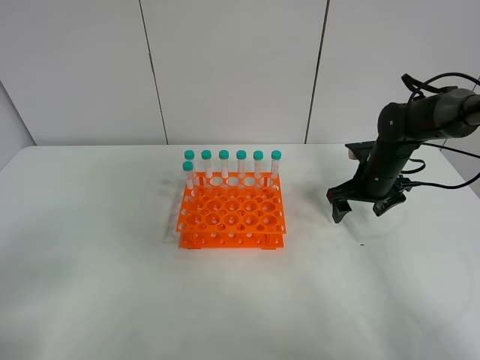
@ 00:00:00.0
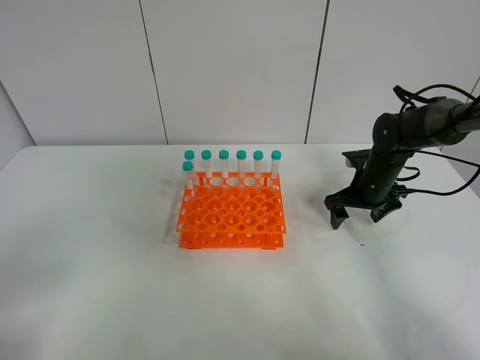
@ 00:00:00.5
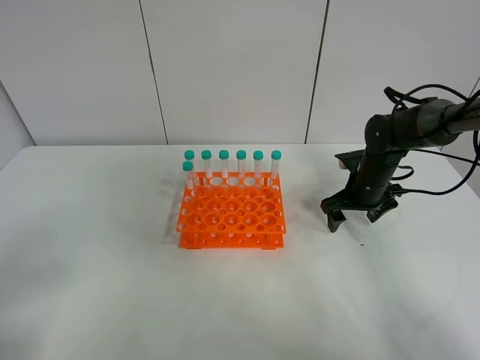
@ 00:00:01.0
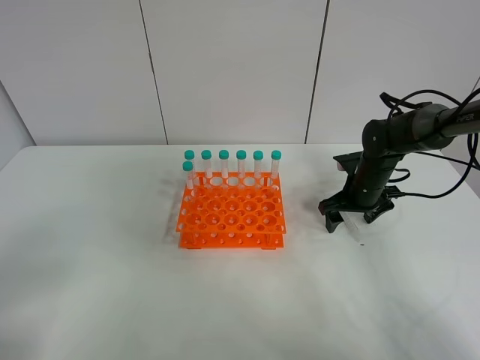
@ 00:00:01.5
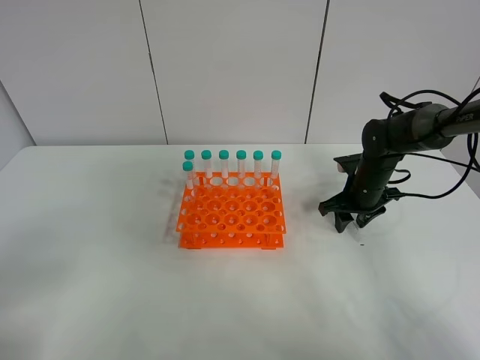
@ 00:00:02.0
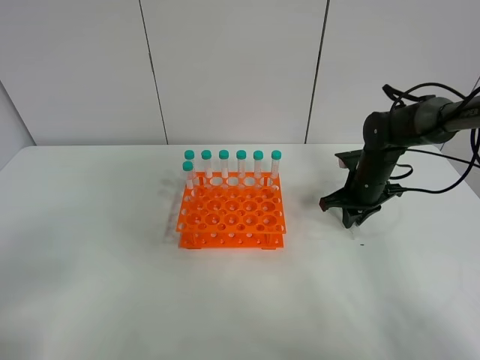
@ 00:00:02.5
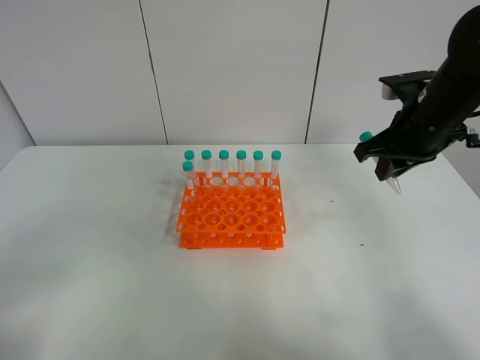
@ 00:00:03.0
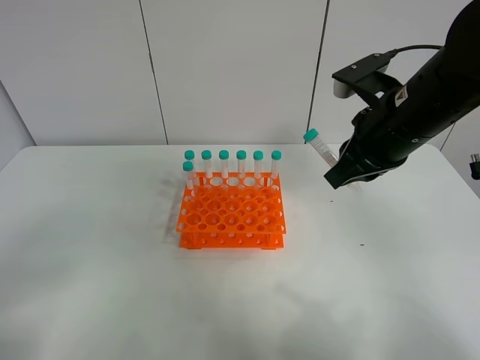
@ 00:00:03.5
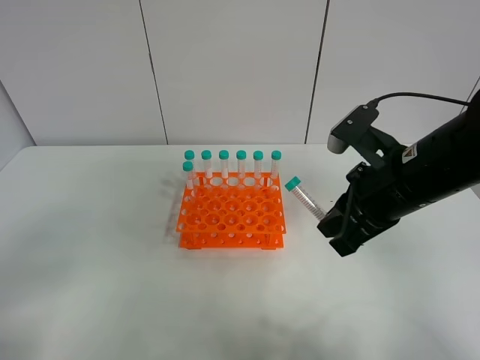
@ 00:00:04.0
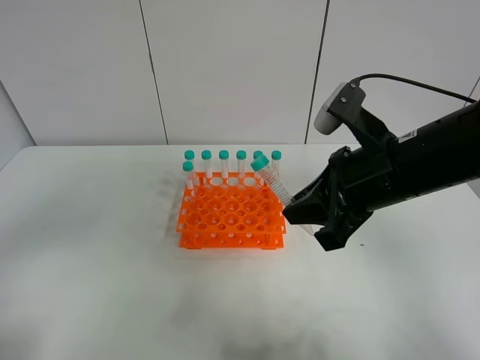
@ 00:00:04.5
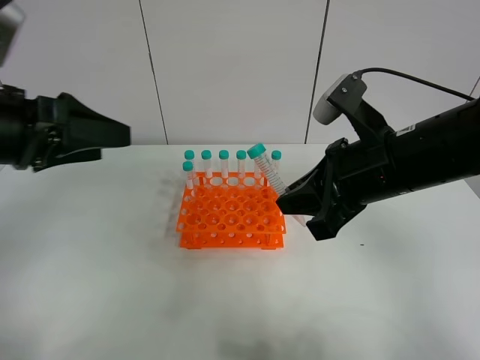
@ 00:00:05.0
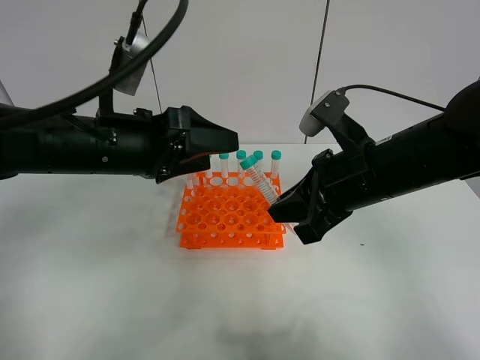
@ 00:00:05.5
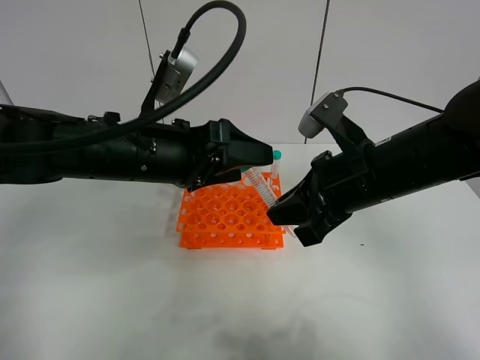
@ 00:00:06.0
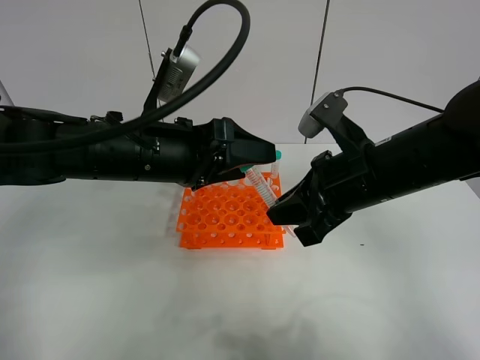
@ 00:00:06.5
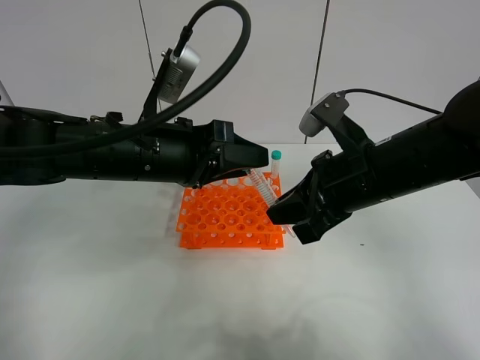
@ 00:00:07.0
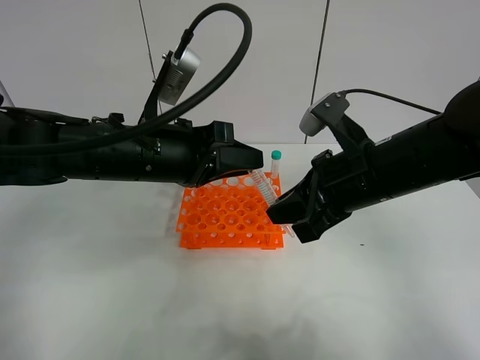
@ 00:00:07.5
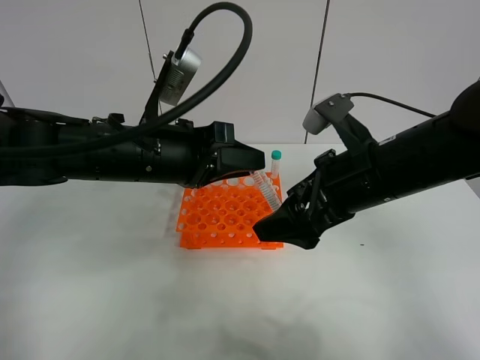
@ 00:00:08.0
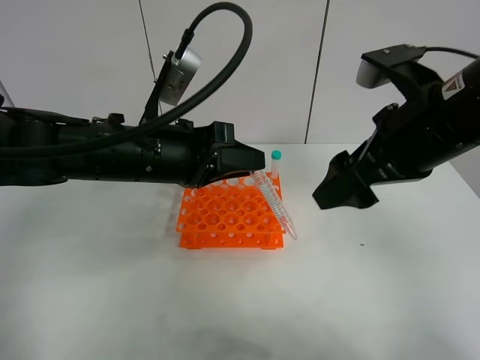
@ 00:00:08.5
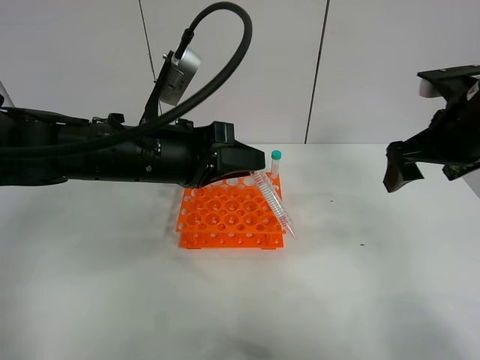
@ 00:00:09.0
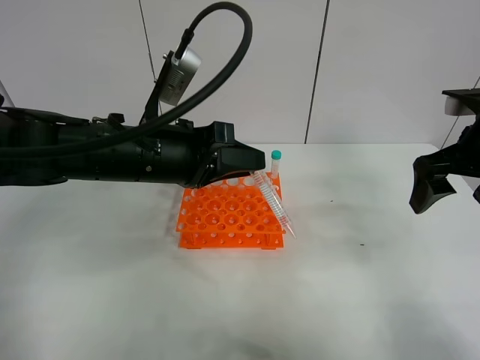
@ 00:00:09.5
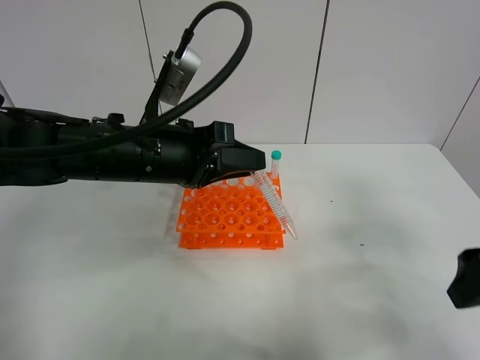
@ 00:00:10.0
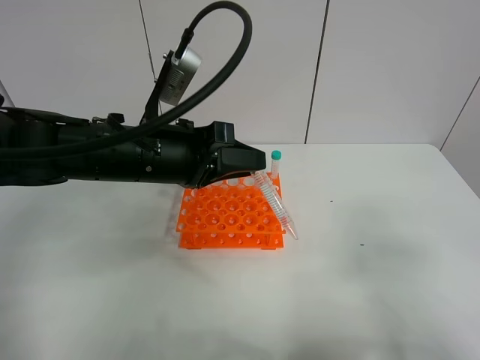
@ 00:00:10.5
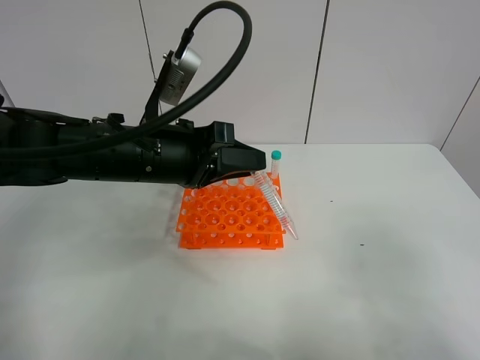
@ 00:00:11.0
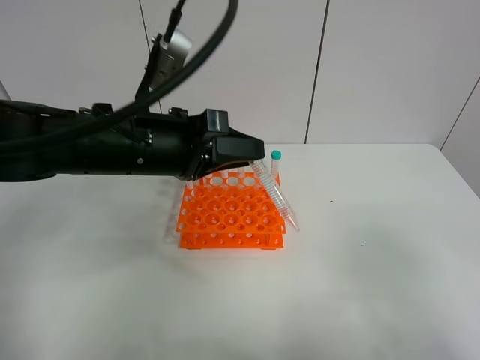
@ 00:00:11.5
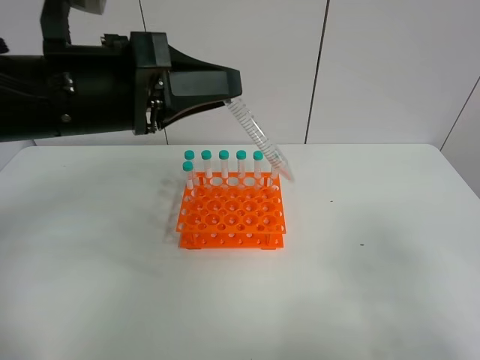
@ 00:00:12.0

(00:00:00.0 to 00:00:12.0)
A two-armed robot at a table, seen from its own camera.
Task of the whole recording: Put the test tube on the table back onto the test tube rack.
Step, 00:00:00.0 - 00:00:02.0: Pick up the test tube with the right gripper.
Step, 00:00:02.5 - 00:00:07.5: Move the test tube from the right gripper to the left gripper.
00:00:00.0 - 00:00:02.0: The right gripper closes up.
00:00:02.0 - 00:00:04.0: The right gripper goes approximately 25 cm backward and upward.
00:00:04.0 - 00:00:06.0: The left gripper is displaced forward and to the right by some 30 cm.
00:00:06.0 - 00:00:08.0: The left gripper closes its fingers. Meanwhile the right gripper opens up.
00:00:08.0 - 00:00:10.0: The right gripper is displaced to the right and backward by approximately 15 cm.
00:00:10.0 - 00:00:12.0: The right gripper goes approximately 15 cm backward. Meanwhile the left gripper travels upward by approximately 10 cm.

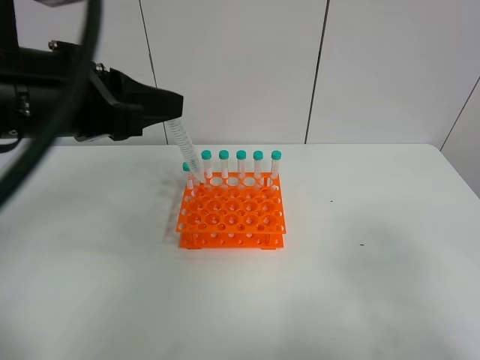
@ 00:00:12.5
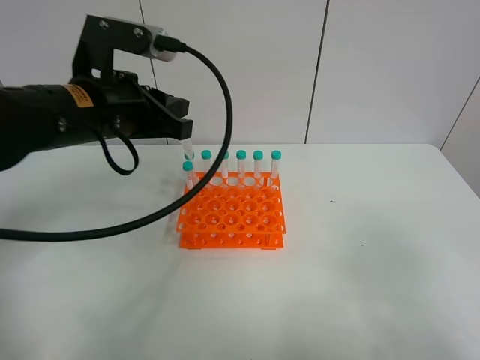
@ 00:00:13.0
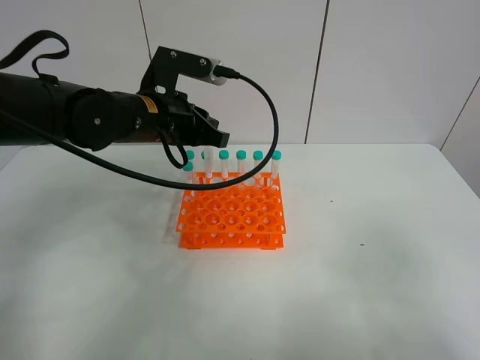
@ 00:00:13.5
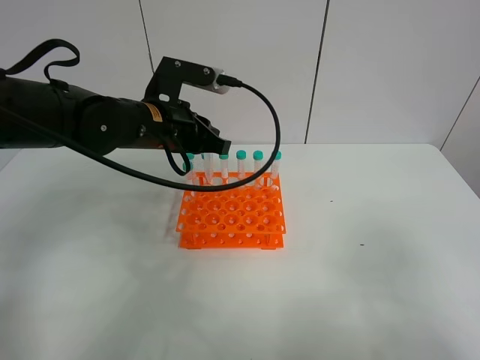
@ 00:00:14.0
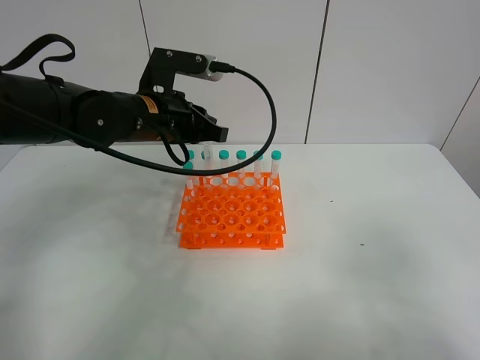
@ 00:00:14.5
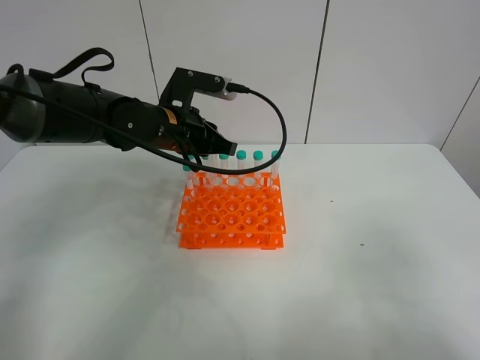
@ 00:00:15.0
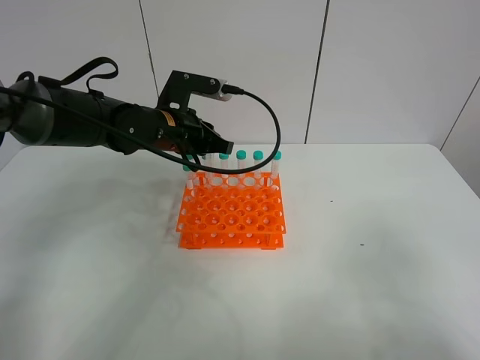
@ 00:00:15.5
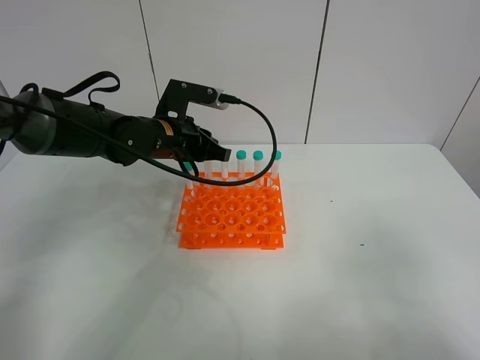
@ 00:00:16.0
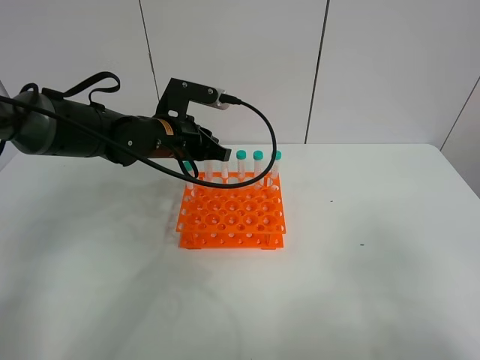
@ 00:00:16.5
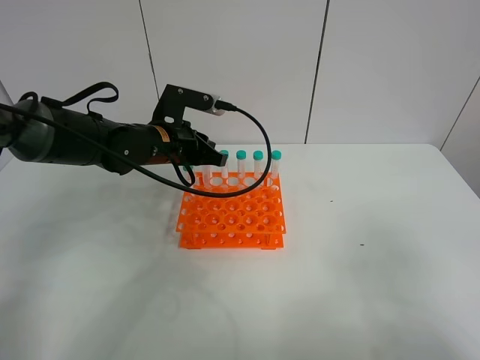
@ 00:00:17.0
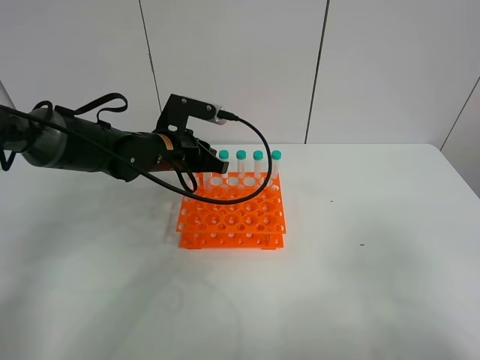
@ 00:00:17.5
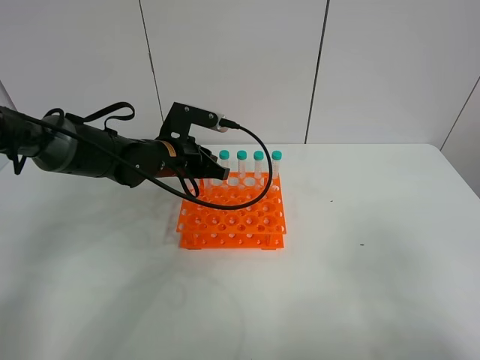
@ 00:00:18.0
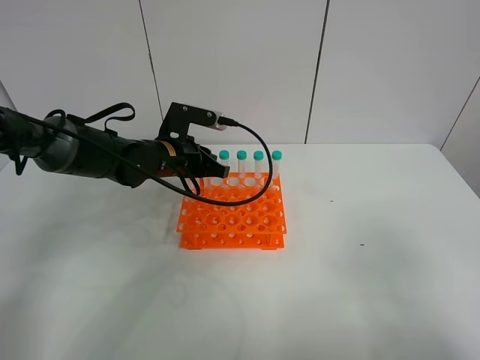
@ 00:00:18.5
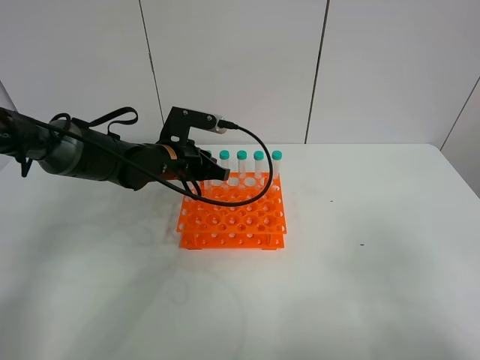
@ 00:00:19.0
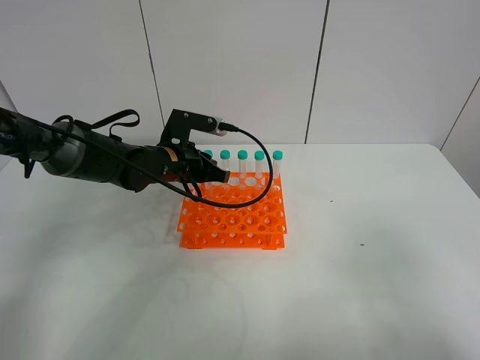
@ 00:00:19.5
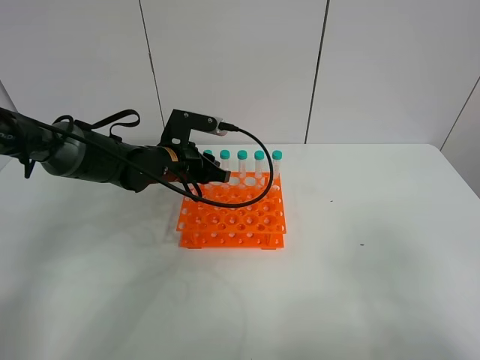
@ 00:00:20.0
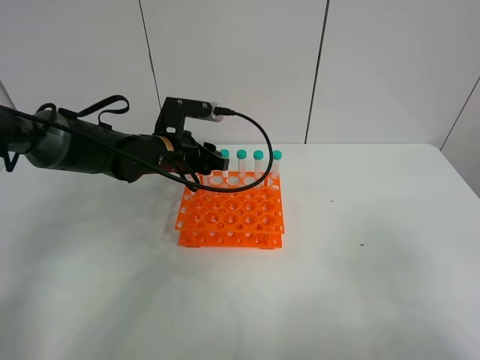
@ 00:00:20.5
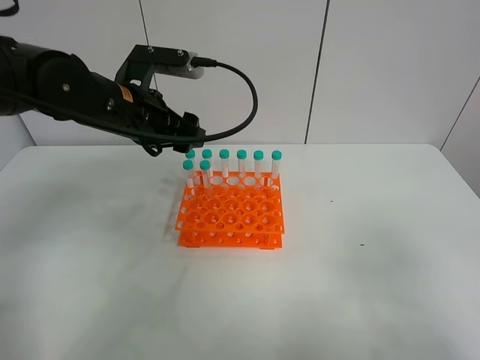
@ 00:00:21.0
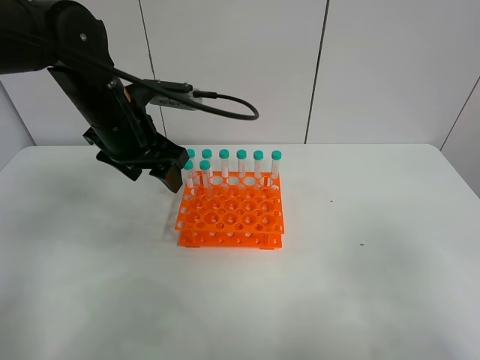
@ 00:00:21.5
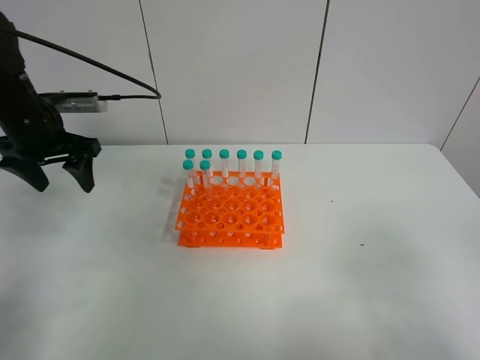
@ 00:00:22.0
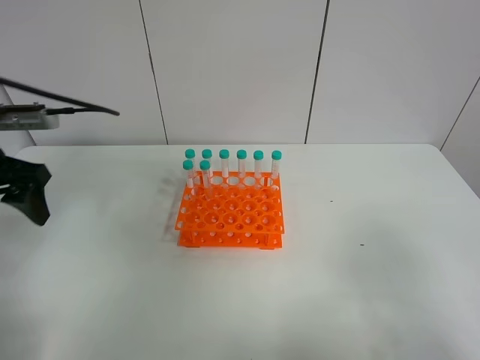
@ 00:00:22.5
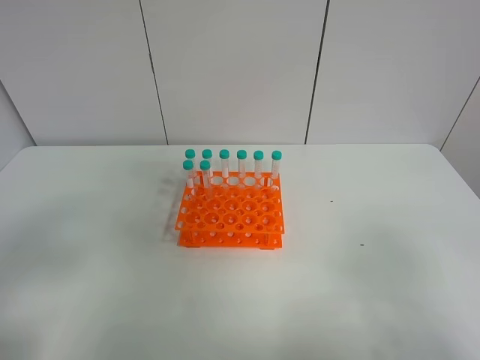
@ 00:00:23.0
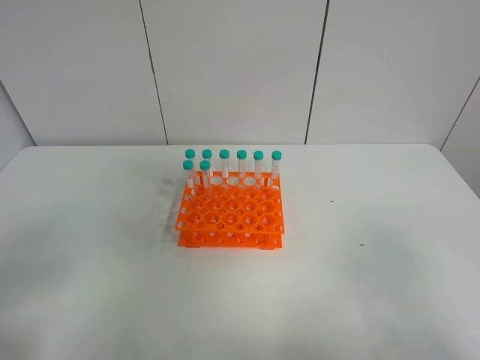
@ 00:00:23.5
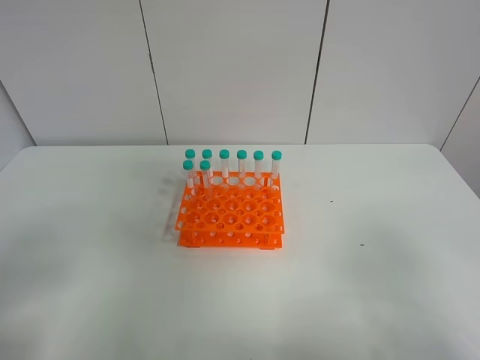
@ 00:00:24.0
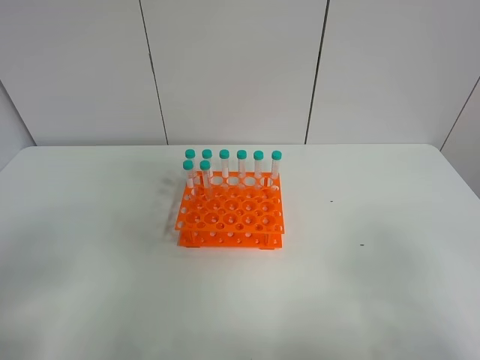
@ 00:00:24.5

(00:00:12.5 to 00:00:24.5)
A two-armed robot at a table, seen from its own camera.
Task of the whole recording: Put the test tube on the table back onto the test tube rack.
Step, 00:00:12.5 - 00:00:20.0: Place the test tube on the test tube rack with the left gripper.
00:00:12.5 - 00:00:14.5: The left gripper travels forward, downward and to the right by about 20 cm.
00:00:14.5 - 00:00:16.5: The left gripper goes roughly 5 cm downward.
00:00:16.5 - 00:00:18.5: There are only small adjustments of the grippers.
00:00:18.5 - 00:00:20.5: The left gripper opens up.
00:00:20.5 - 00:00:22.5: The left gripper goes approximately 25 cm to the left, backward and upward, and opens its fingers.
00:00:22.5 - 00:00:24.5: The left gripper goes roughly 25 cm backward.
